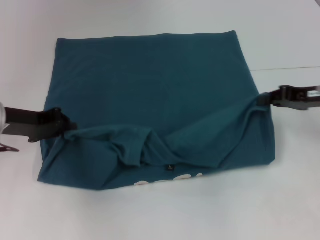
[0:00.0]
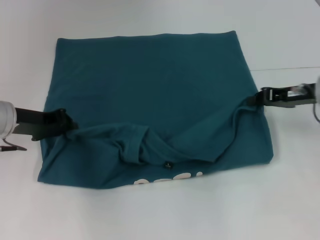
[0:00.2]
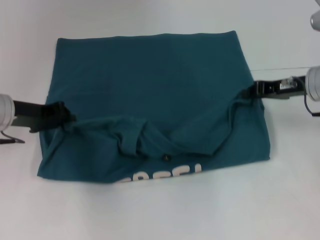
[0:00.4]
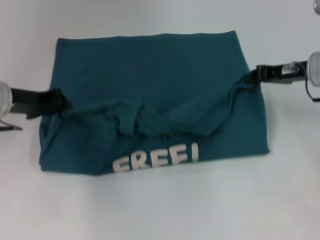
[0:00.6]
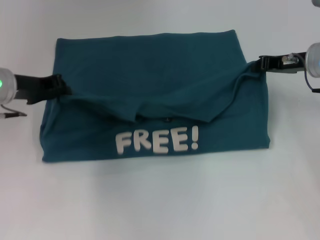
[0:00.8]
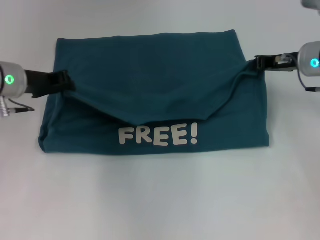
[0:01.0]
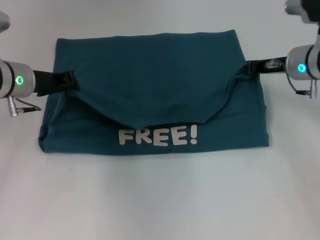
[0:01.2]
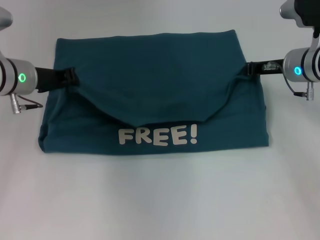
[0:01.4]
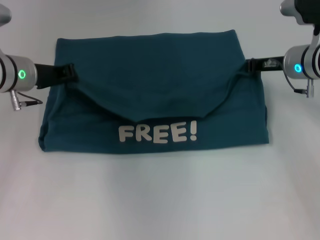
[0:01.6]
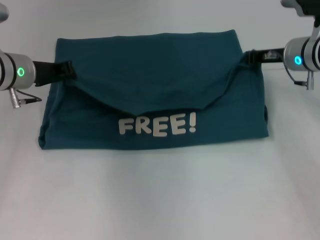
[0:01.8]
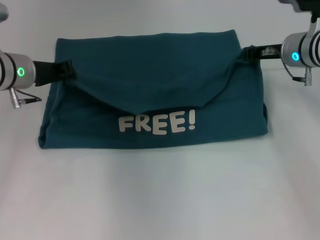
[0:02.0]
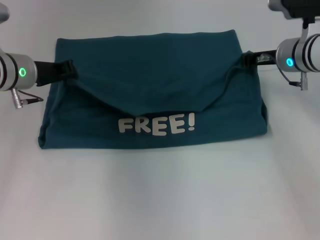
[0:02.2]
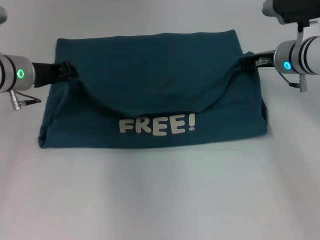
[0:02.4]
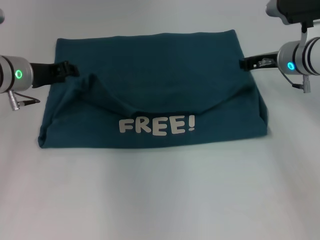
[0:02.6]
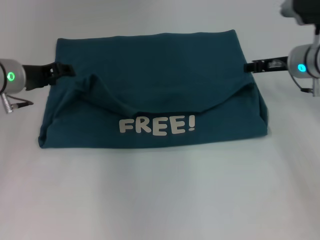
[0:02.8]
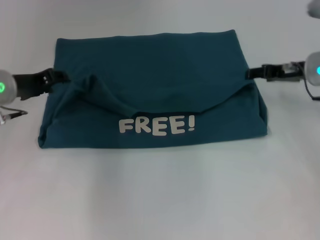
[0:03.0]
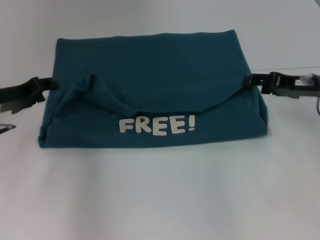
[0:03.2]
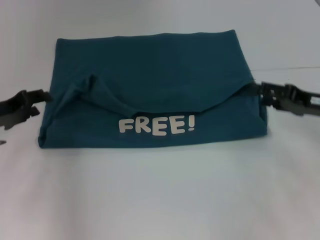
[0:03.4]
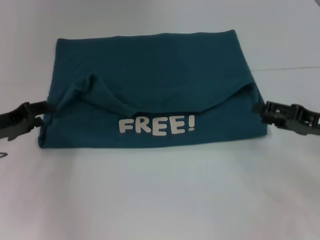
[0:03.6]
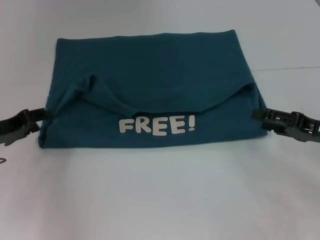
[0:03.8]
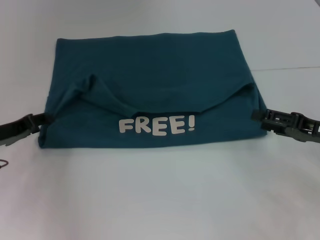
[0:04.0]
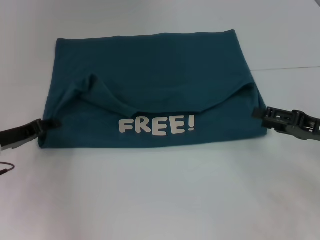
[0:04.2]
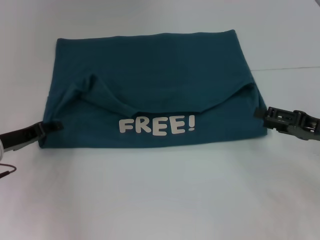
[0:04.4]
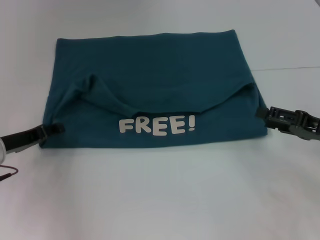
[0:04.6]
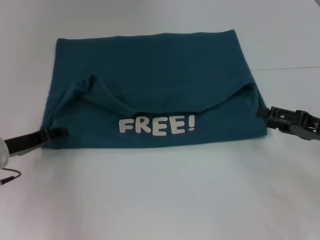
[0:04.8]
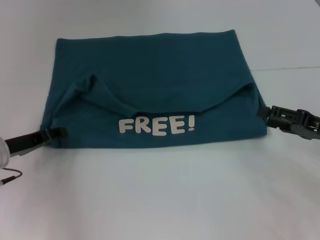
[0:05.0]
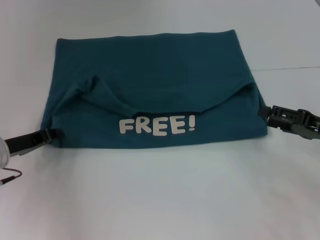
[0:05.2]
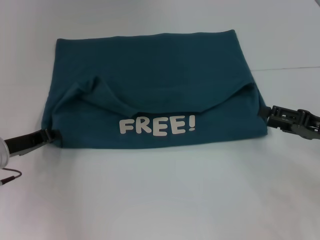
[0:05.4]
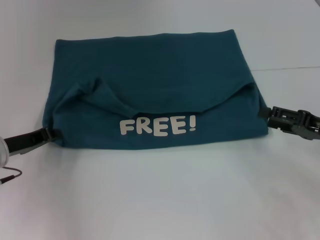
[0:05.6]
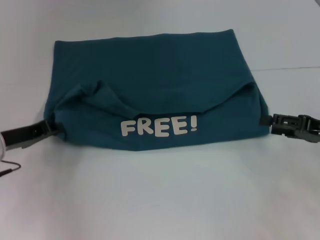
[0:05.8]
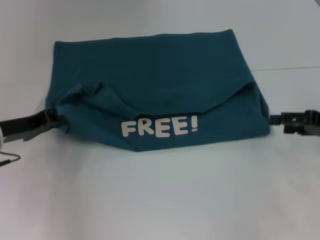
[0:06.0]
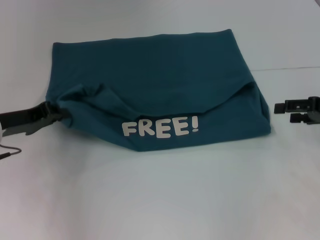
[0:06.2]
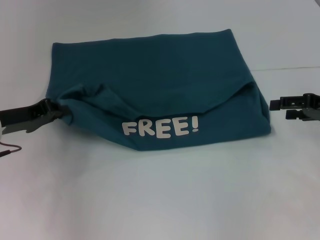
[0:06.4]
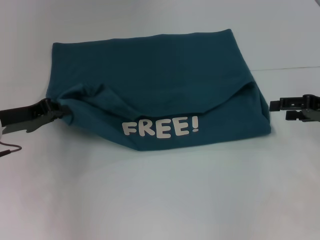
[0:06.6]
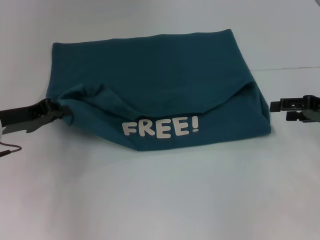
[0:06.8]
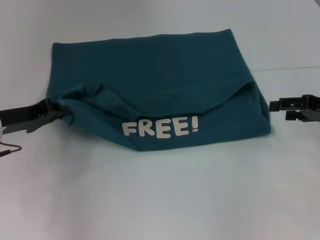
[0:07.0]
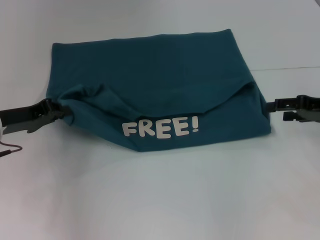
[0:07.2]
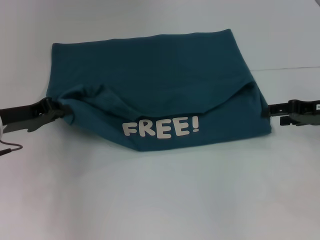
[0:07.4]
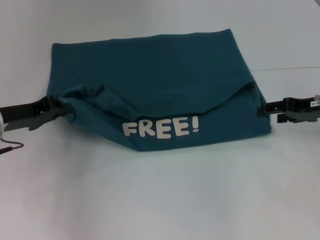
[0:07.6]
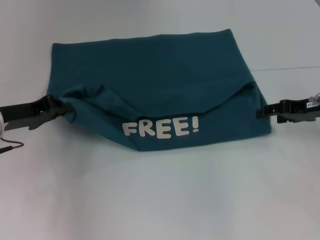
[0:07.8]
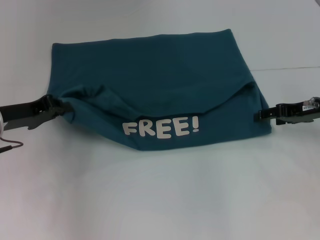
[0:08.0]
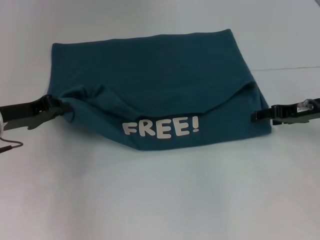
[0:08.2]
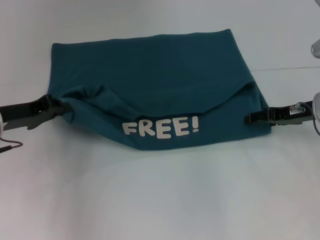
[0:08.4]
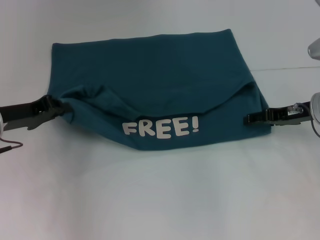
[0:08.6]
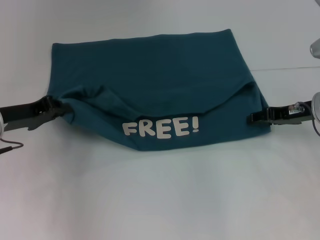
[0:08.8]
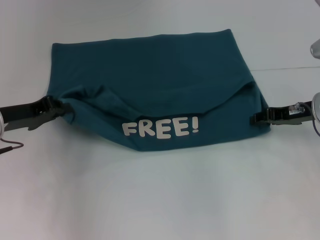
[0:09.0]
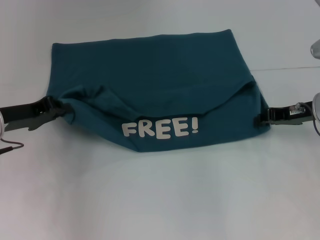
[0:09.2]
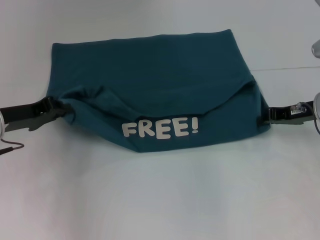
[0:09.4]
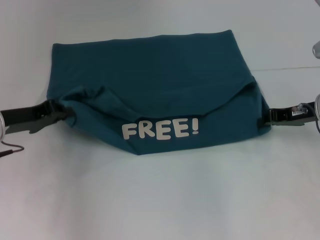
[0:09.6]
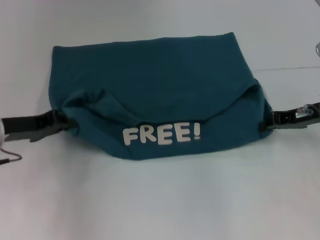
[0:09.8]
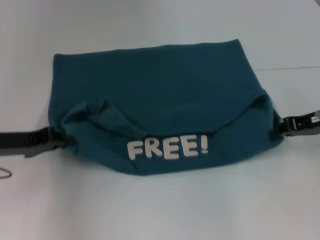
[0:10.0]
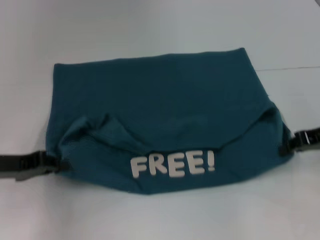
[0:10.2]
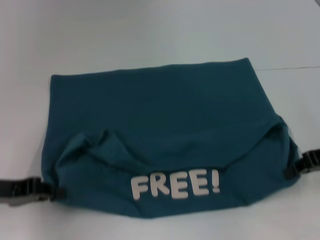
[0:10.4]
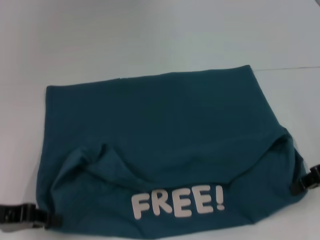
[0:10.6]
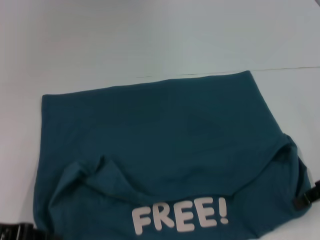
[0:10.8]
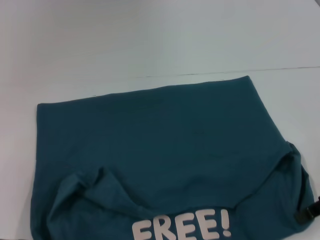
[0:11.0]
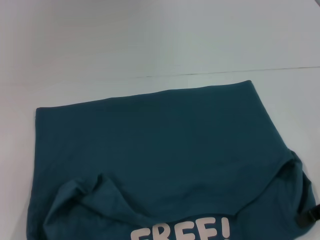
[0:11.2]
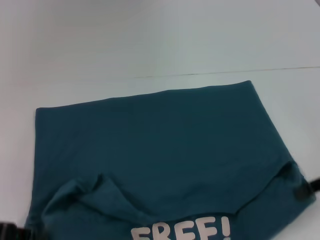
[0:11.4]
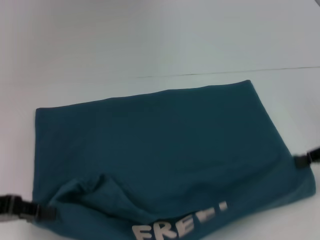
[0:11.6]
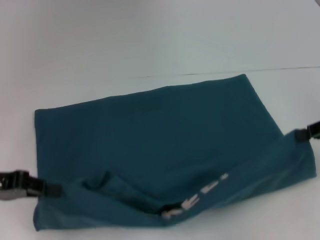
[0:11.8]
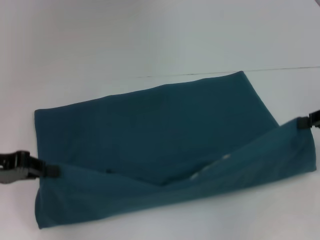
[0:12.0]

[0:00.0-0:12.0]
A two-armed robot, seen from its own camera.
Step, 0:00.0 to 0:02.8: Fold the clothes to the left.
Step, 0:00.0 to 0:02.8: Fold the clothes to the right.
Step, 0:03.0 to 0:11.2: Pull the clothes with your left hand.
Step, 0:03.0 to 0:11.2: Pull the clothes with your right hand.
0:00.0 to 0:01.6: The right gripper travels forward and to the left by roughly 10 cm. The left gripper goes some 5 cm forward.
0:01.6 to 0:03.0: The right gripper opens. The left gripper opens.
0:03.0 to 0:04.4: The left gripper goes about 10 cm downward and backward. Meanwhile the right gripper is displaced backward by some 15 cm.
0:04.4 to 0:06.0: The left gripper closes up.
0:06.0 to 0:07.6: The right gripper is displaced forward by some 5 cm.
0:07.6 to 0:09.0: The grippers make only small movements.
0:09.0 to 0:10.4: Both grippers travel together backward, some 5 cm. The right gripper closes its fingers.
0:10.4 to 0:12.0: The left gripper moves about 5 cm backward and comes back.

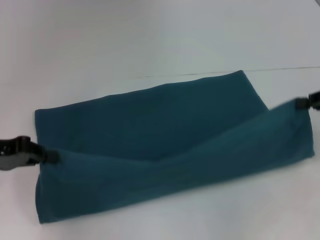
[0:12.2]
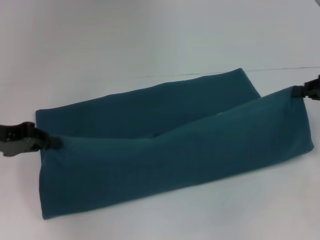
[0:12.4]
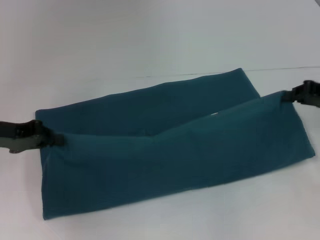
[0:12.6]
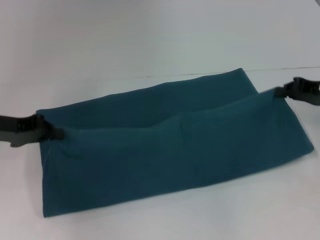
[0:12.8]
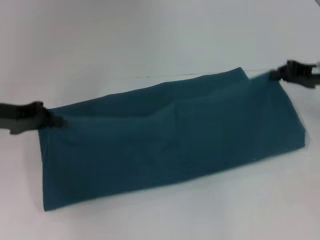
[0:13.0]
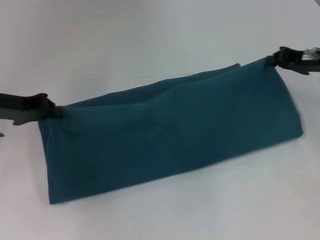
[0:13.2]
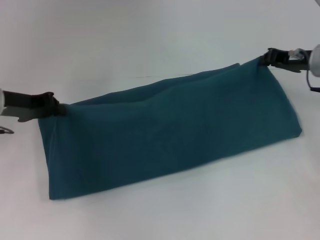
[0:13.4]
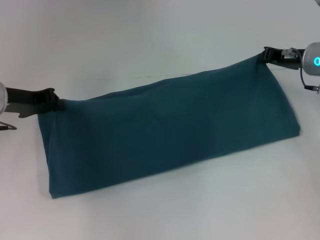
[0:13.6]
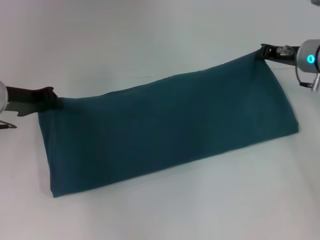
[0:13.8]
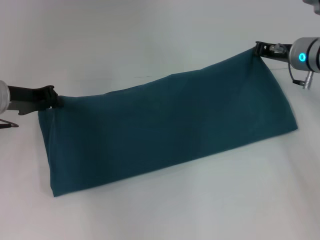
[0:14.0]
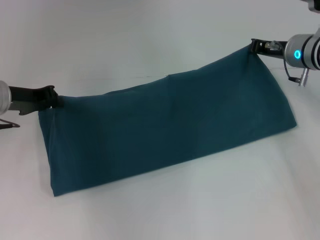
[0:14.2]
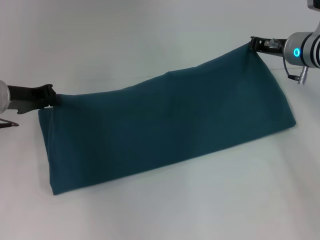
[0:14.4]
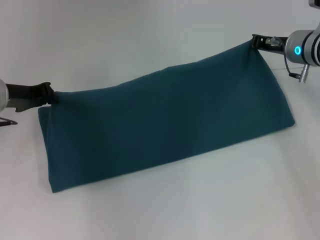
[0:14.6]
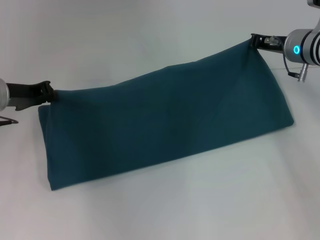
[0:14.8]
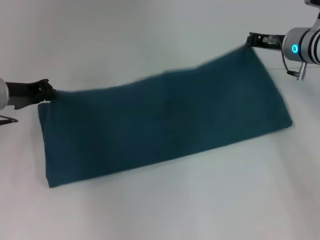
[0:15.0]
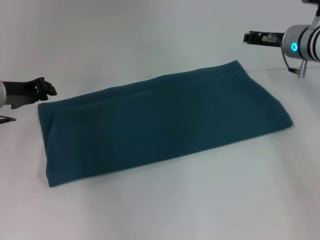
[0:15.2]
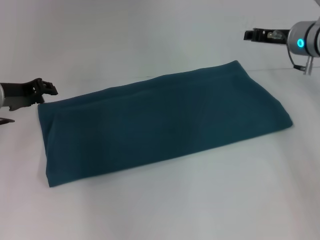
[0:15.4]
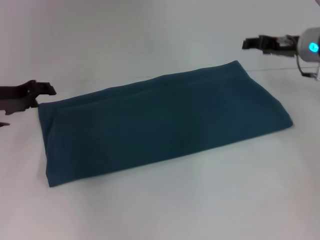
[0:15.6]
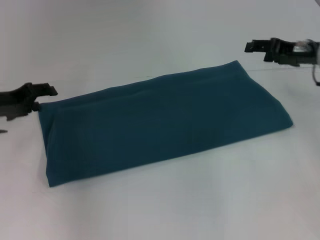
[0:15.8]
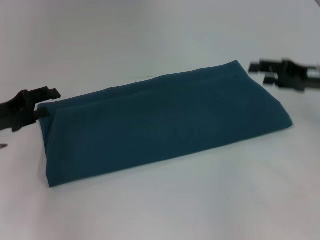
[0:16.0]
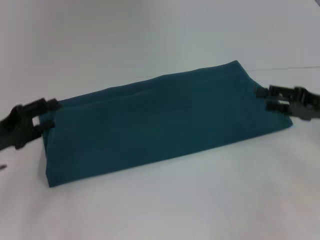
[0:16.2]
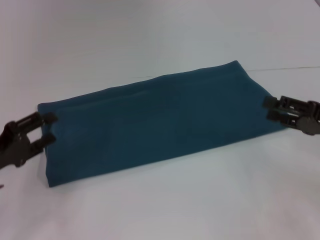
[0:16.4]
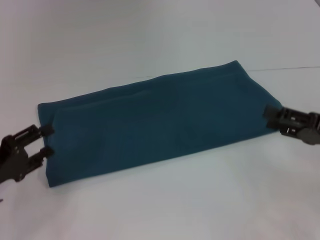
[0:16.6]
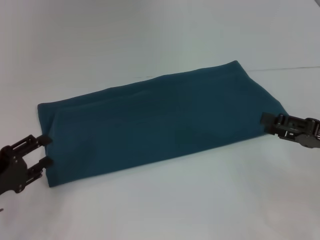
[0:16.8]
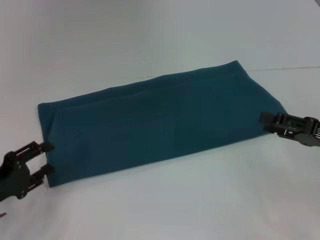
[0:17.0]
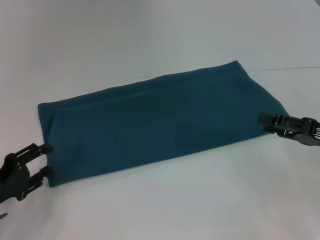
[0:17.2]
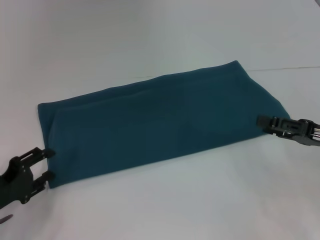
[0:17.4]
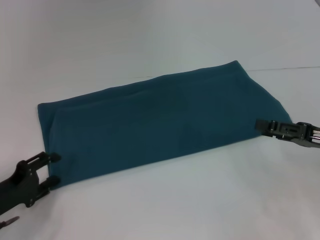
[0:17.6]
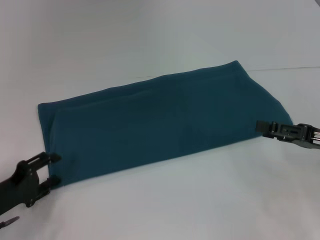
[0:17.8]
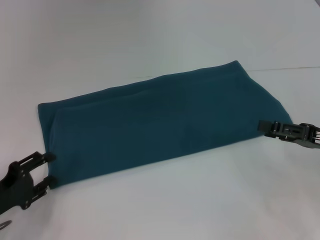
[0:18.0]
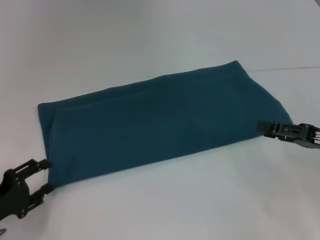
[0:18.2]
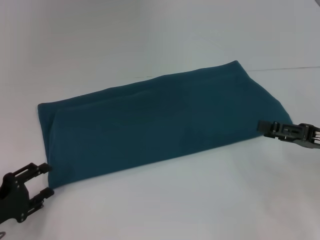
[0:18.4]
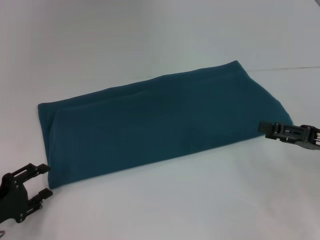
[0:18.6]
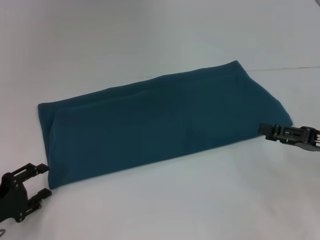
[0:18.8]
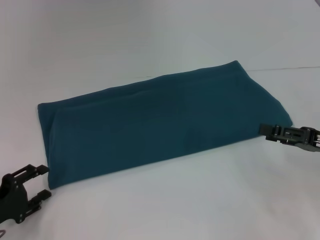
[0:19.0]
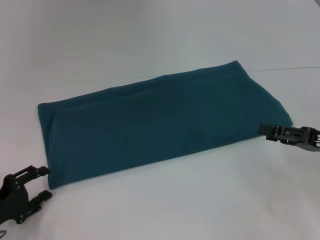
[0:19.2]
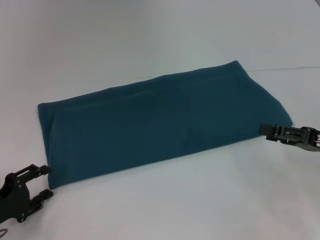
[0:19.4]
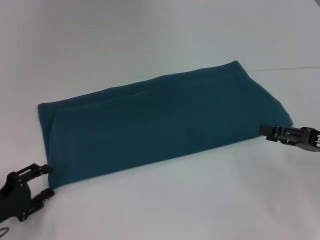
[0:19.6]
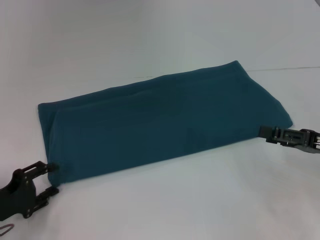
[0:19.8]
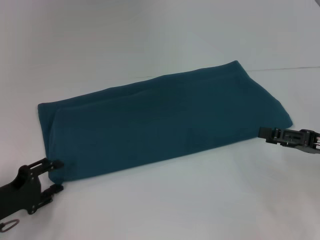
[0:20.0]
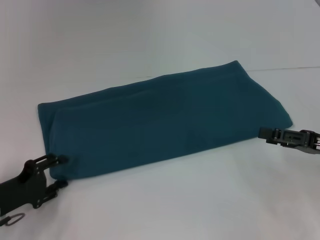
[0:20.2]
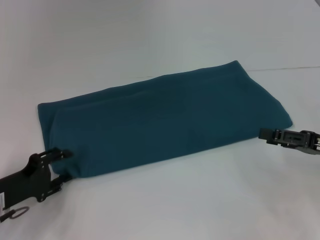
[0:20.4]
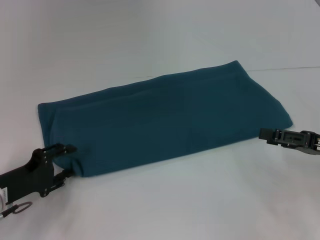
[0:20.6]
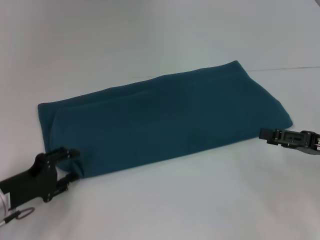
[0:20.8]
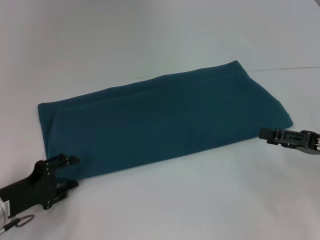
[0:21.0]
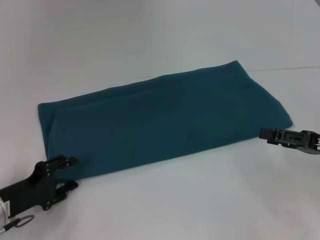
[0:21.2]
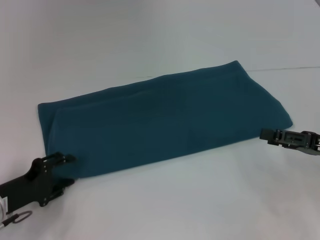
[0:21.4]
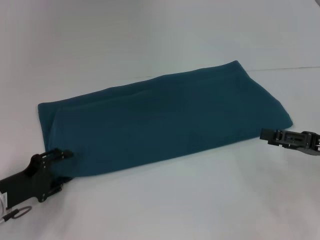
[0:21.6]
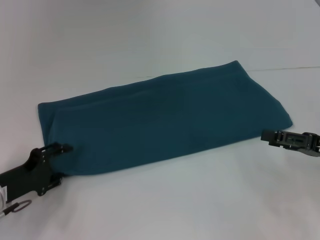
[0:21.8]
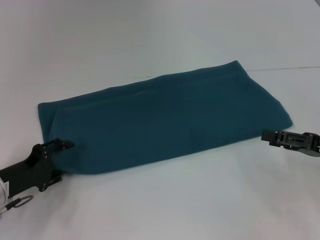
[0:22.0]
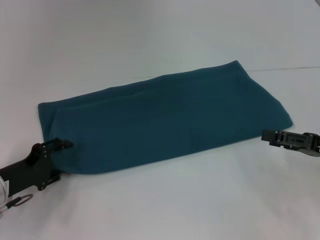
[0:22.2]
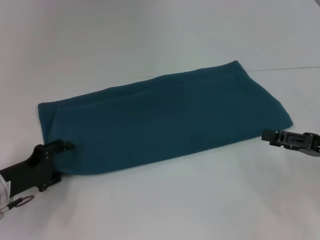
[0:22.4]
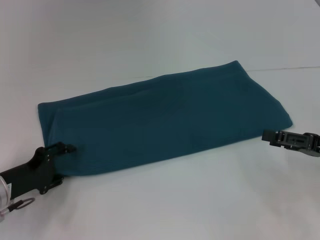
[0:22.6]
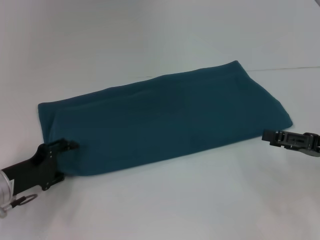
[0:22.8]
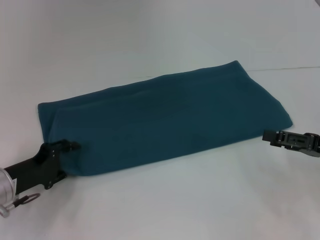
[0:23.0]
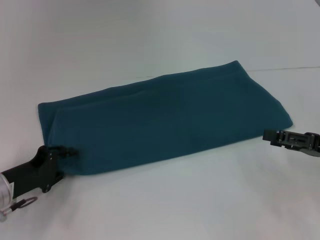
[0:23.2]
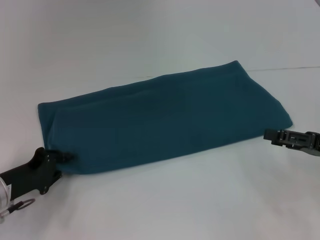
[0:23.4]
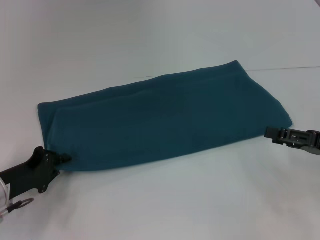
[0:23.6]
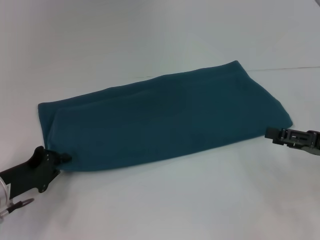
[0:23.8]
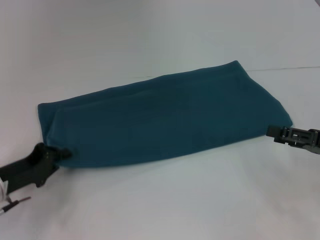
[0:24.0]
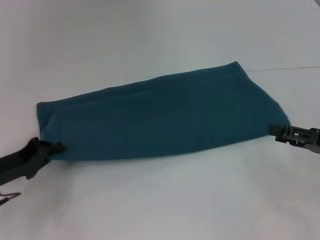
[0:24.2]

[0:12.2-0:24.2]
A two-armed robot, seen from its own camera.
Step, 0:12.2 to 0:15.2: Fold the clothes to the right.
0:12.2 to 0:13.8: The right gripper shifts roughly 15 cm forward and to the left, while the left gripper heads forward, covering some 10 cm.
0:13.8 to 0:15.2: The grippers make only small movements.
0:15.2 to 0:16.6: The left gripper is displaced backward and downward by approximately 15 cm, and opens up, while the right gripper shifts roughly 20 cm backward and to the right, and opens.
0:16.6 to 0:18.2: The grippers make only small movements.
0:18.2 to 0:21.2: There are only small adjustments of the grippers.
0:21.2 to 0:22.6: The grippers stay close to where they were, moving slightly.
0:22.6 to 0:24.2: The left gripper closes its fingers.
